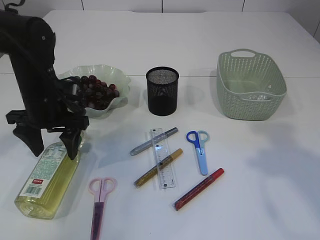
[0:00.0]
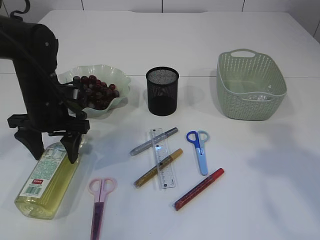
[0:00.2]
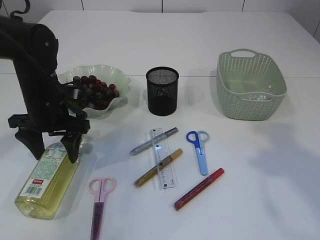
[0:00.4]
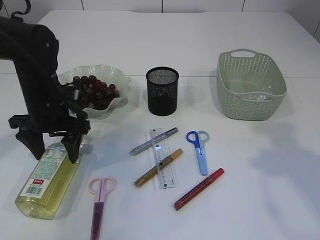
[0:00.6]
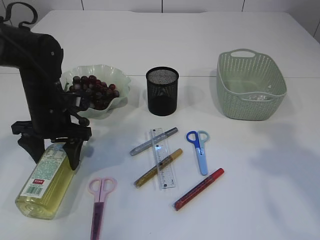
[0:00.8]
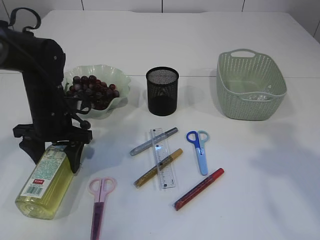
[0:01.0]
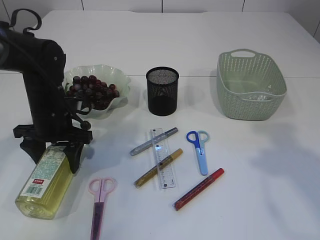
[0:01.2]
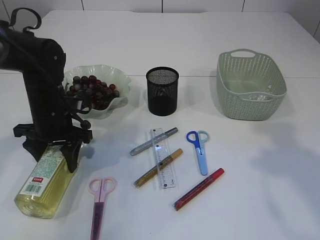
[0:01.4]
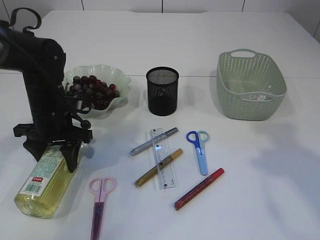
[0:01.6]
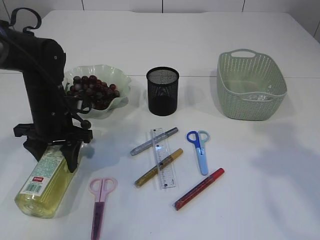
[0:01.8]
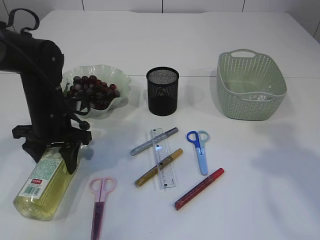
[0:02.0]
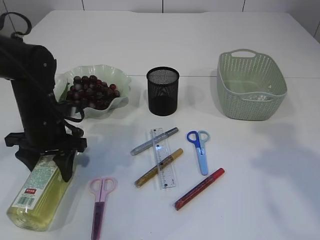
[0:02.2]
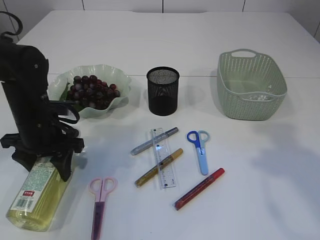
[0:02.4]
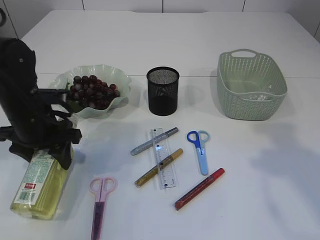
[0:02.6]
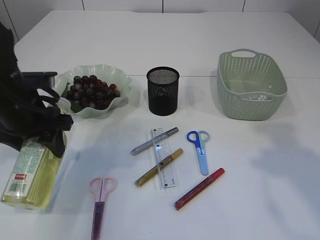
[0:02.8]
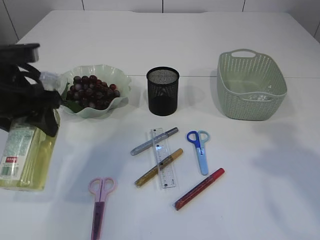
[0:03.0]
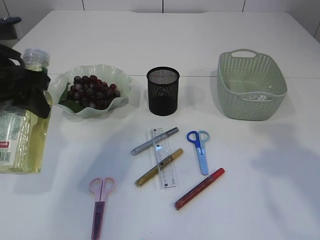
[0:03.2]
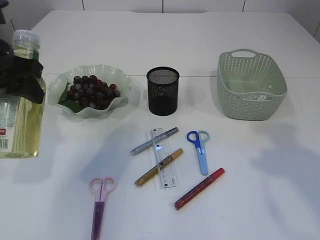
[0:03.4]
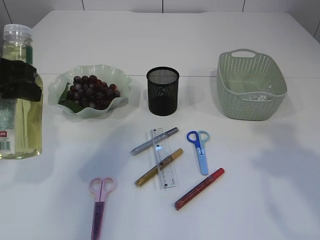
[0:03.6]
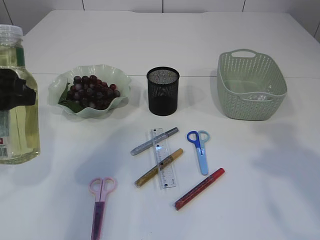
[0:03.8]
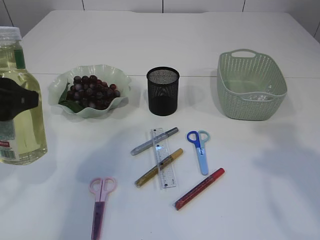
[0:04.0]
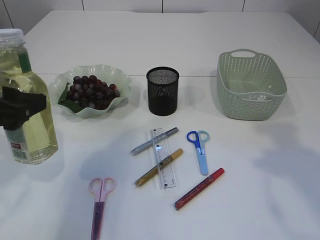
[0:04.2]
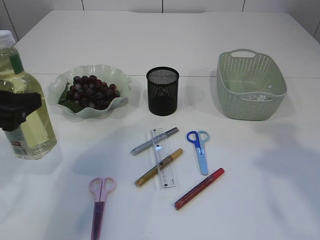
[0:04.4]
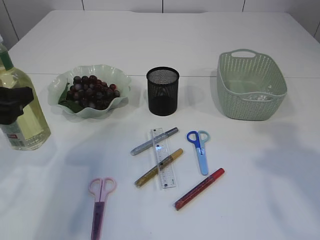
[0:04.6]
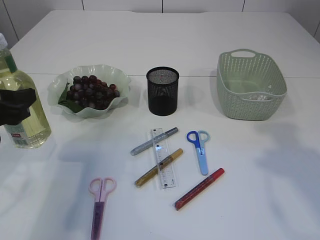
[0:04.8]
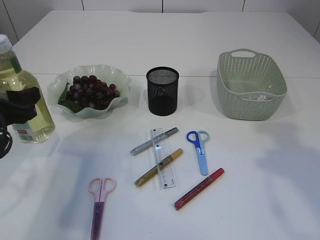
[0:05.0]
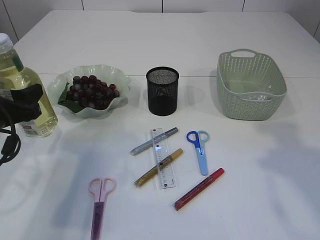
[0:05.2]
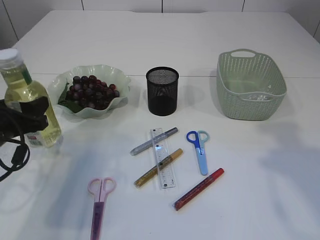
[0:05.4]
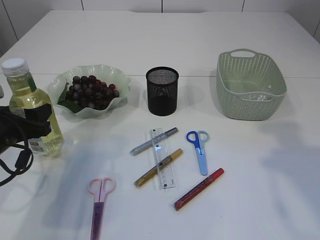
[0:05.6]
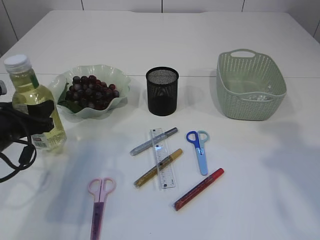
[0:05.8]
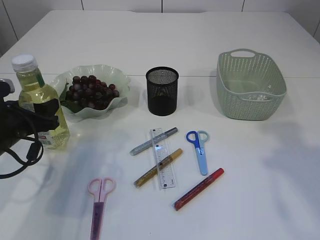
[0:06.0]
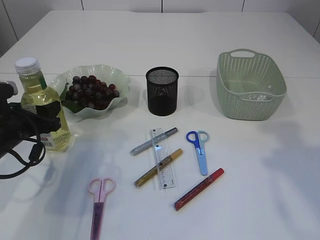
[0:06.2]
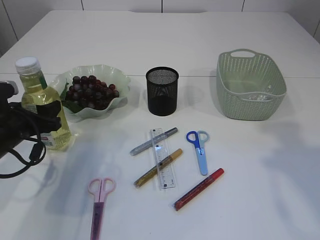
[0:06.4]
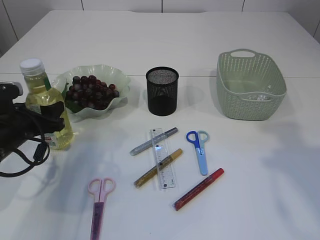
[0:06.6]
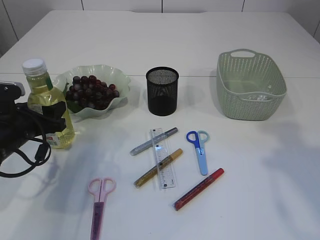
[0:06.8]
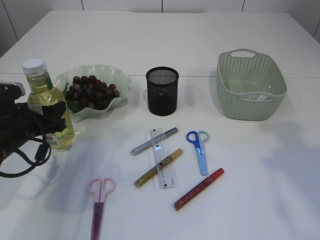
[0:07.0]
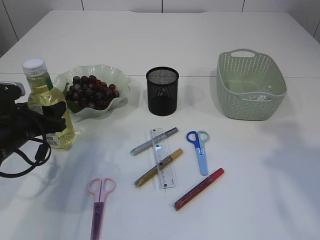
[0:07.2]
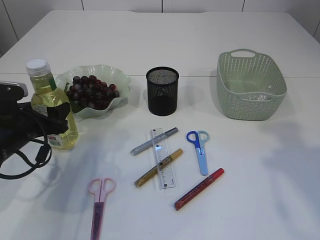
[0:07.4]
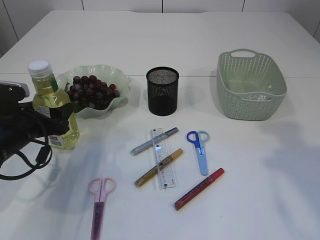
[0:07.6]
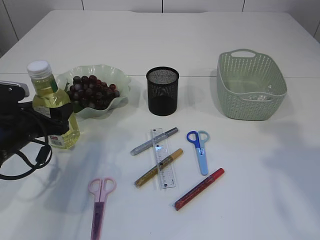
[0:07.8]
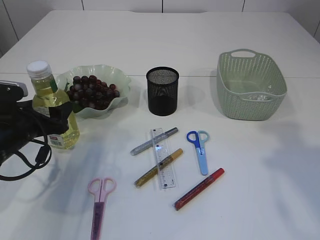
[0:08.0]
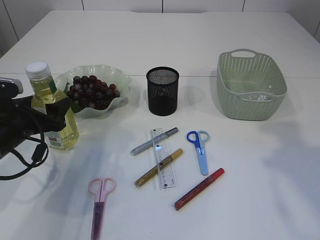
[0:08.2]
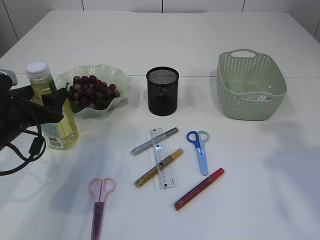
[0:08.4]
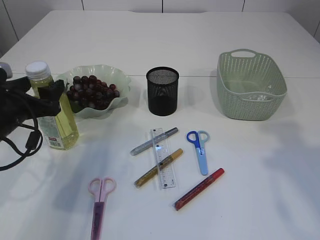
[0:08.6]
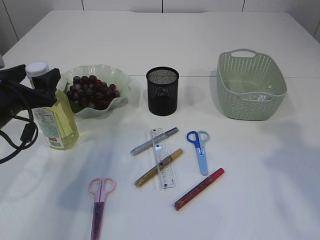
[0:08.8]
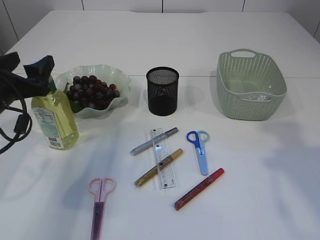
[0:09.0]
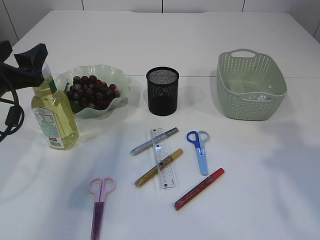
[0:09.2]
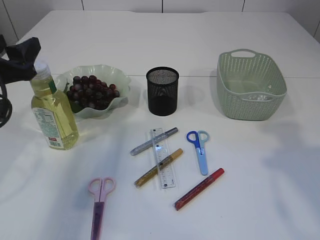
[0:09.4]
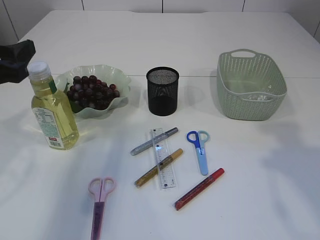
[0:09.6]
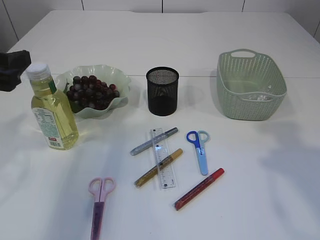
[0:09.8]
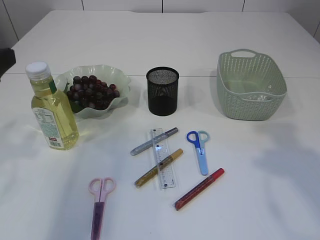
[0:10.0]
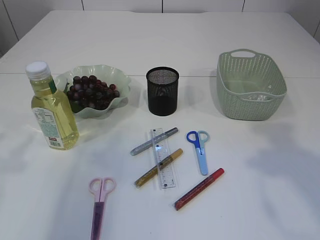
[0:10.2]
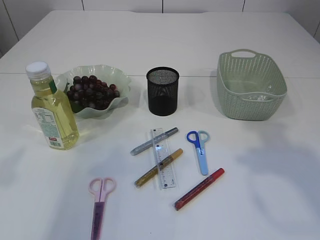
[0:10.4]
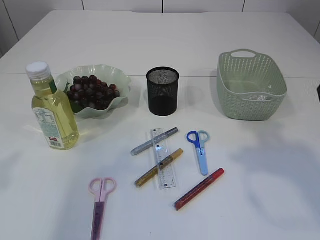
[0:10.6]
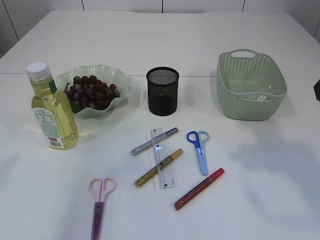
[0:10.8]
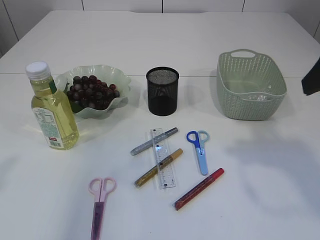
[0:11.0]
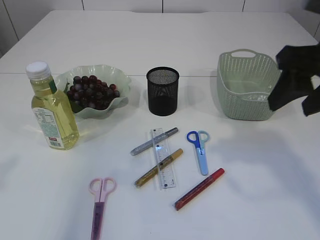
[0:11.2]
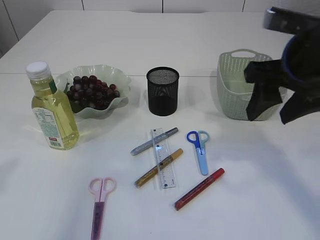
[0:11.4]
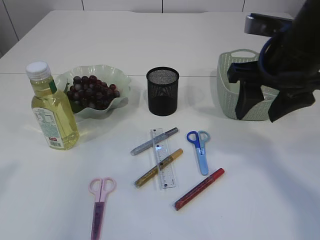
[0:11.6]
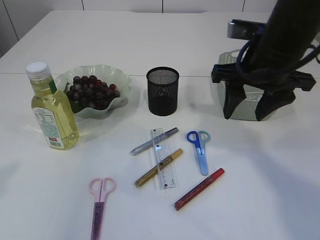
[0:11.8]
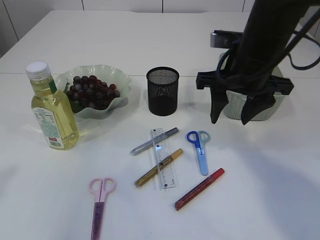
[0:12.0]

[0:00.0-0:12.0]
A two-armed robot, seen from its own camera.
Step, 0:00.0 to 0:02.8: Pick up the bottle with the left arm.
Step, 0:03.0 to 0:09.4: Place the bottle.
0:00.0 to 0:01.6: The grippers stay close to where they were, moving slightly.
0:01.6 to 0:03.0: The left gripper heads upward and backward, covering roughly 15 cm.
0:03.0 to 0:04.4: The left gripper travels backward by about 10 cm.
0:04.4 to 0:06.0: The left gripper shifts some 10 cm downward and forward.
0:06.0 to 0:07.6: The grippers stay close to where they were, moving slightly.
0:07.6 to 0:09.0: The left gripper moves upward, approximately 10 cm.
0:09.0 to 0:10.4: The left gripper travels backward and upward by some 15 cm.
0:10.4 to 0:12.0: The right gripper travels forward, to the left and downward by some 20 cm, while the left gripper shifts about 5 cm upward.

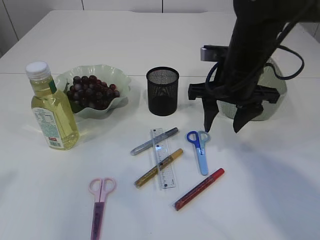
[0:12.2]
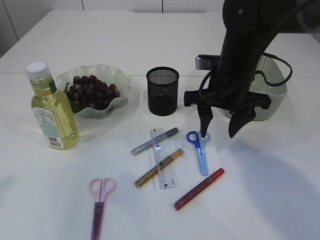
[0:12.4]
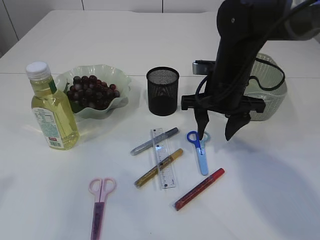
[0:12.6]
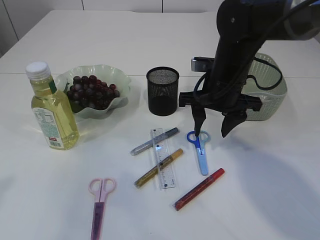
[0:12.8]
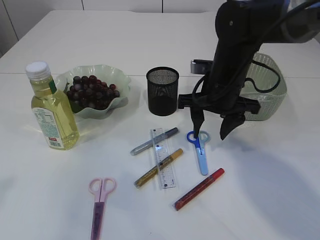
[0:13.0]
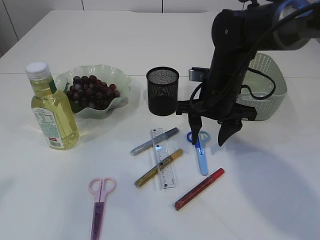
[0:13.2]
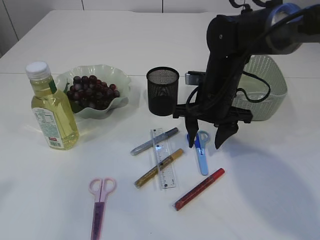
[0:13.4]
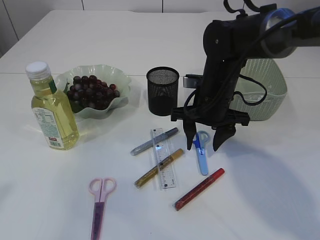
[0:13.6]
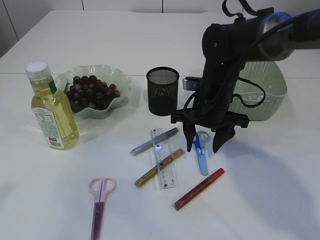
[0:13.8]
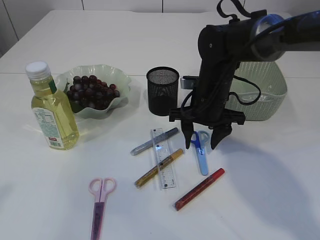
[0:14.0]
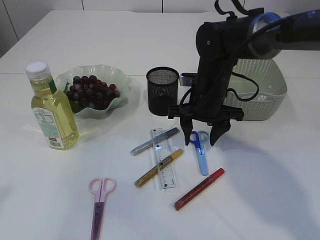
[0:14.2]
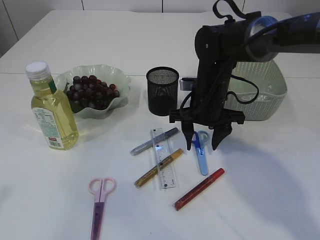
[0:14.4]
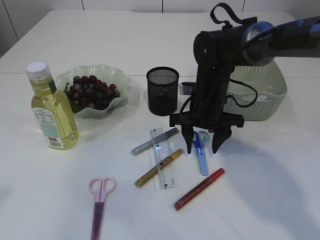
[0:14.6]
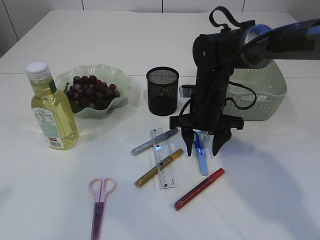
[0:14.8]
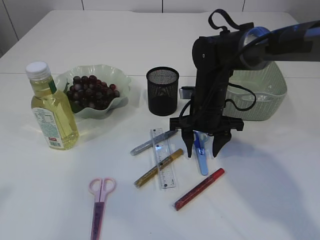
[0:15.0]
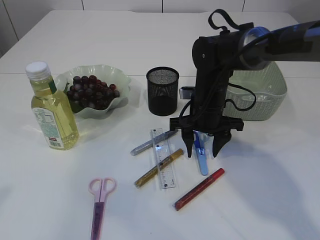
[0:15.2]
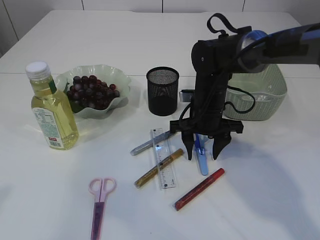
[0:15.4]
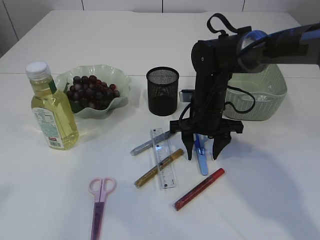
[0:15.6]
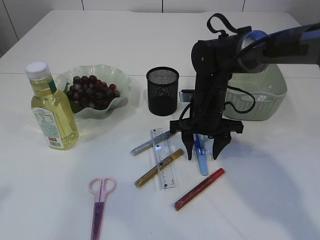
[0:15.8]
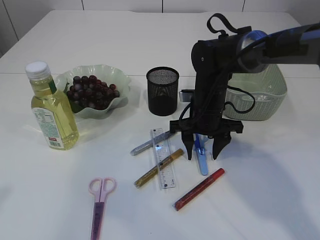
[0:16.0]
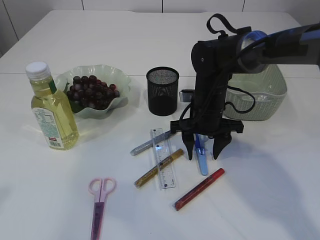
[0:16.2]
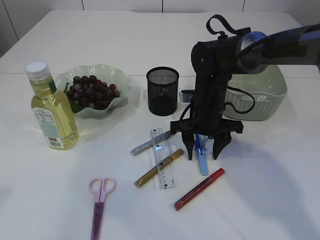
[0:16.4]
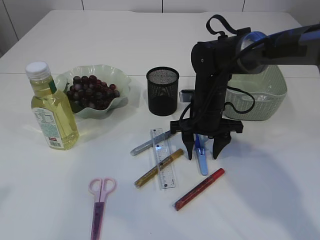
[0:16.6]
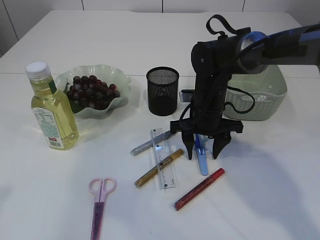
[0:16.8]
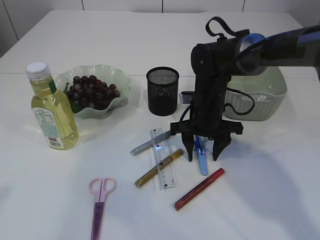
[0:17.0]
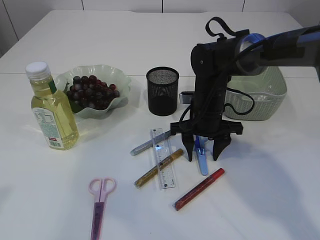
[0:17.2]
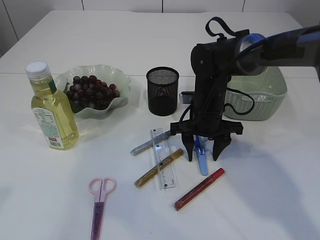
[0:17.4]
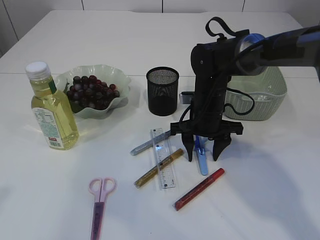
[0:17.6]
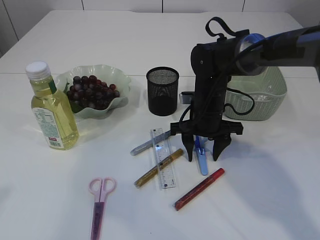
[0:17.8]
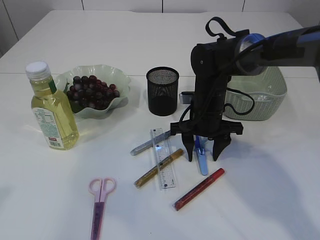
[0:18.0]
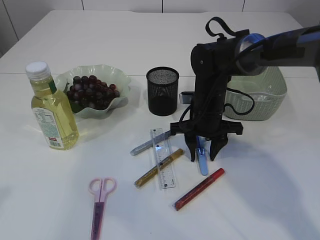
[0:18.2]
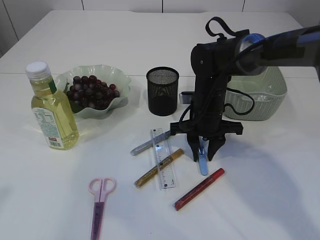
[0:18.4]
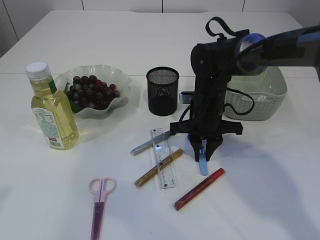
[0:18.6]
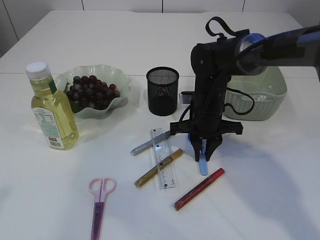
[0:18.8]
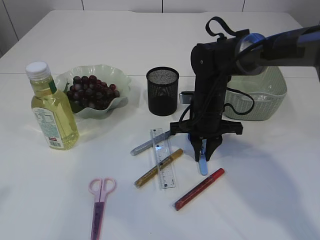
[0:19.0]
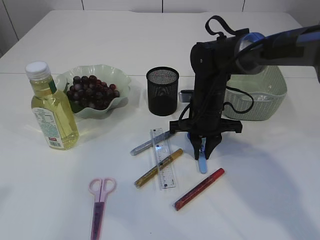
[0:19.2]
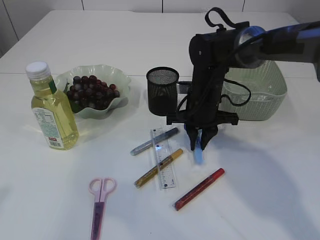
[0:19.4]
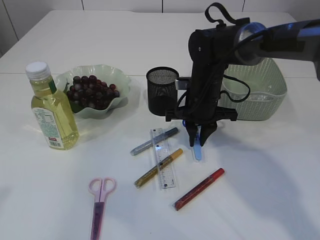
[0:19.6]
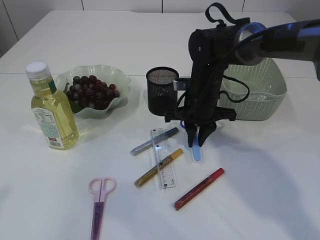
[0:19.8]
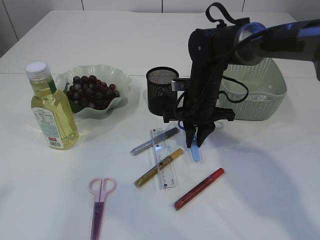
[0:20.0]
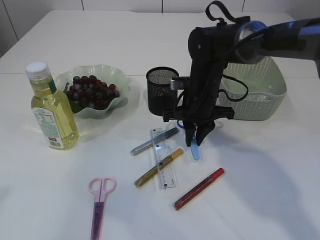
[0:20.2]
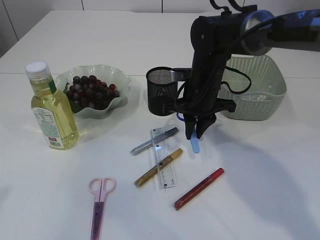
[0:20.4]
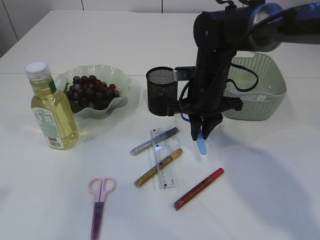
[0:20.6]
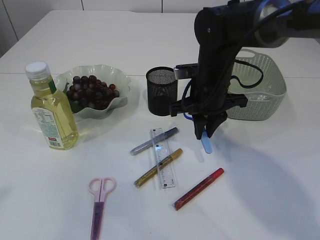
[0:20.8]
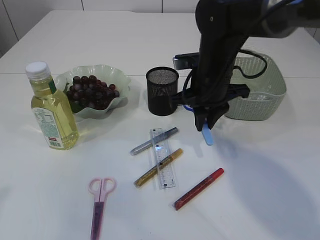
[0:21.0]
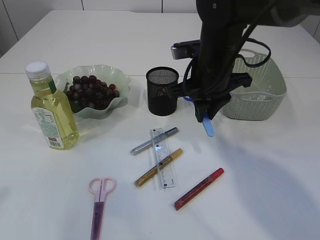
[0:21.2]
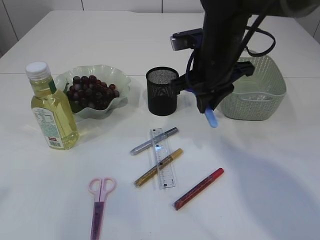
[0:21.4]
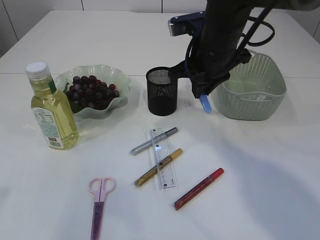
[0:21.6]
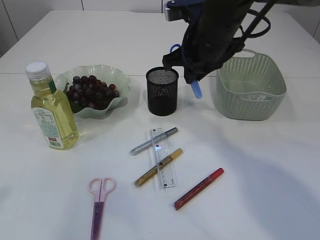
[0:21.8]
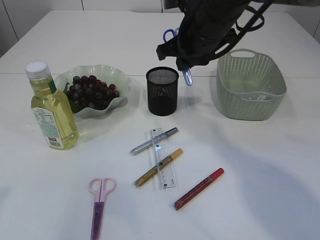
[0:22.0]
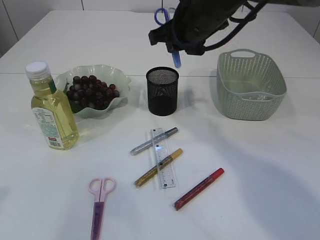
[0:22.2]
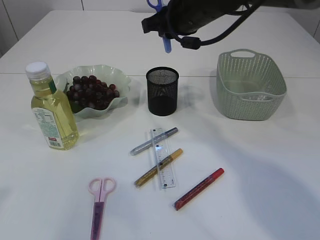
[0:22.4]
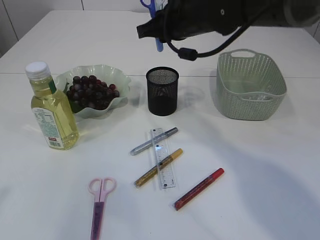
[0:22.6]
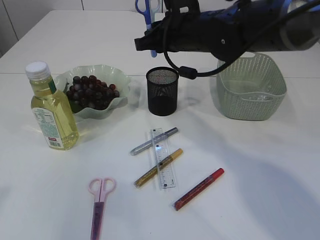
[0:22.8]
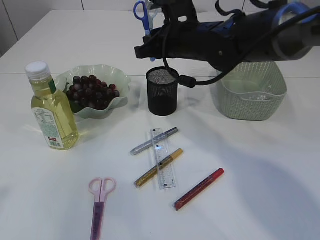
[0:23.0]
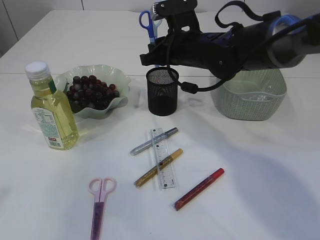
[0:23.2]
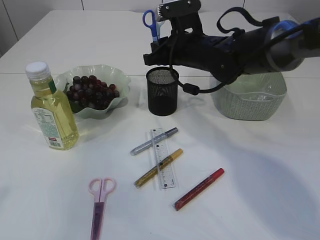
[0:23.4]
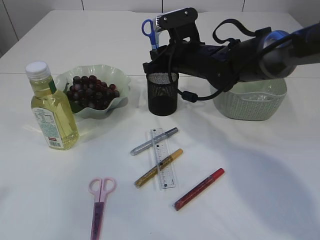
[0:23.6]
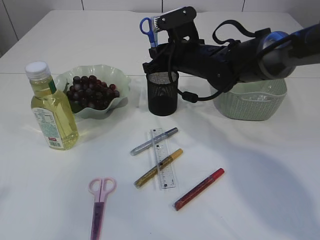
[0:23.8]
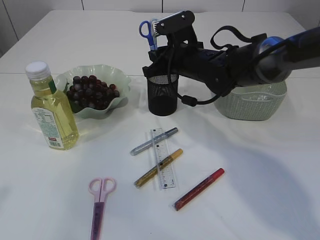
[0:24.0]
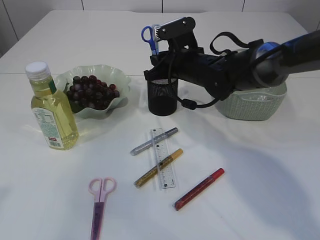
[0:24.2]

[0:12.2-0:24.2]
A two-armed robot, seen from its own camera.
Step, 0:12.2 to 0:20.4: pick up the blue scissors.
0:12.2 to 0:13.8: The right gripper travels downward by roughly 5 cm.
0:13.8 to 0:15.2: The grippers make only small movements.
0:15.2 to 0:18.2: Both grippers stay put.
0:18.2 to 0:19.8: The right gripper closes.
0:19.8 to 0:21.2: The right gripper goes approximately 10 cm upward.
0:21.2 to 0:22.6: The right gripper moves upward, about 5 cm.
0:22.6 to 0:24.2: The right gripper travels downward by approximately 10 cm.
